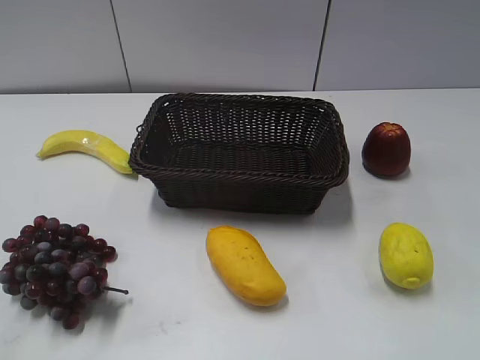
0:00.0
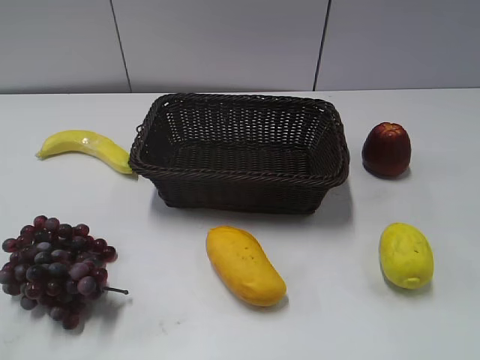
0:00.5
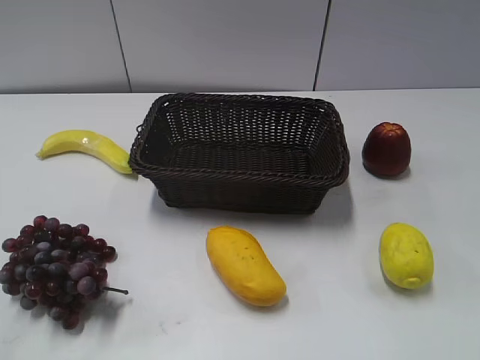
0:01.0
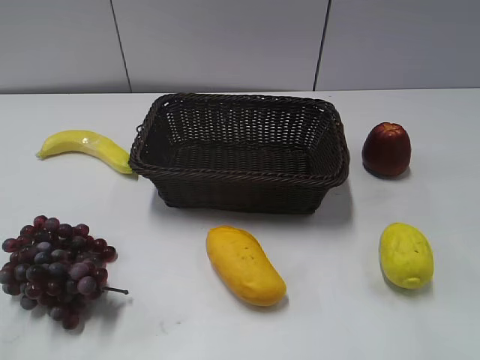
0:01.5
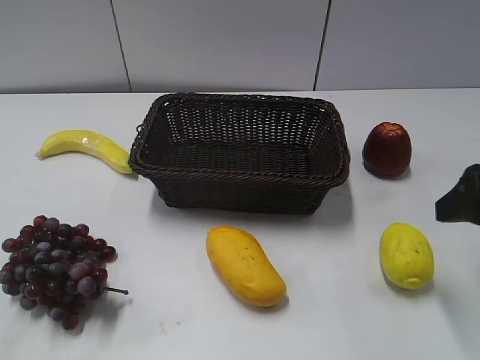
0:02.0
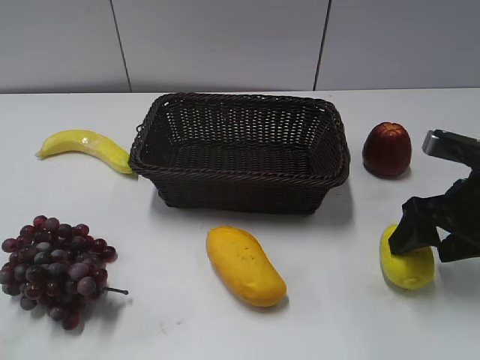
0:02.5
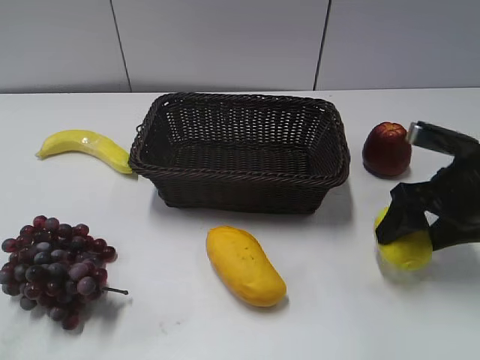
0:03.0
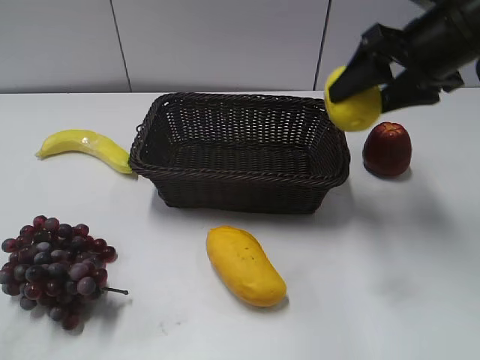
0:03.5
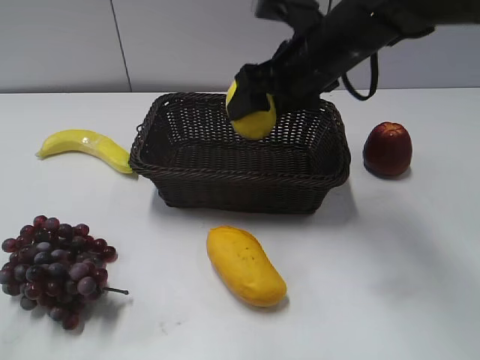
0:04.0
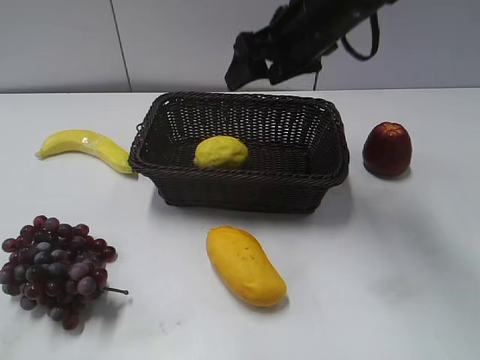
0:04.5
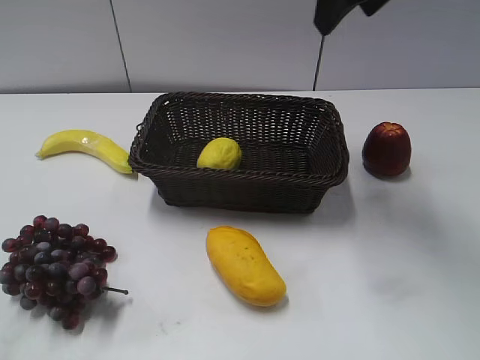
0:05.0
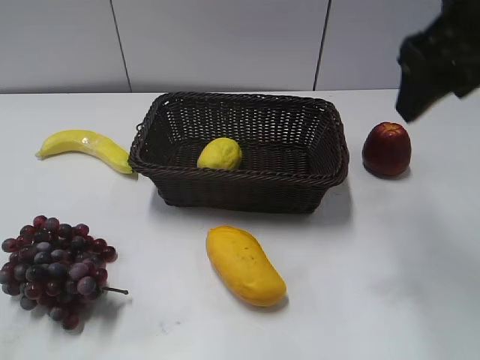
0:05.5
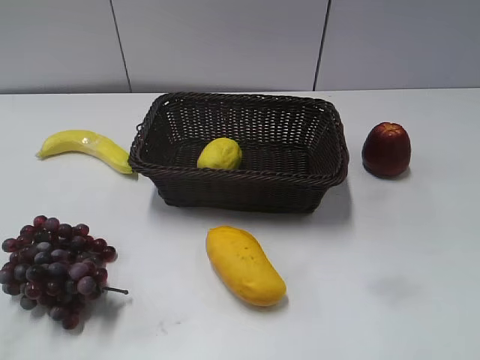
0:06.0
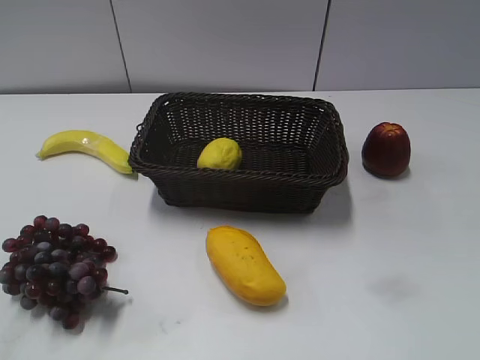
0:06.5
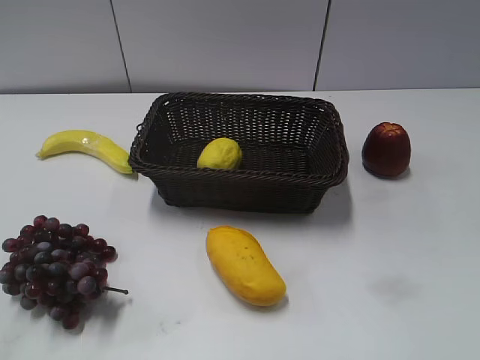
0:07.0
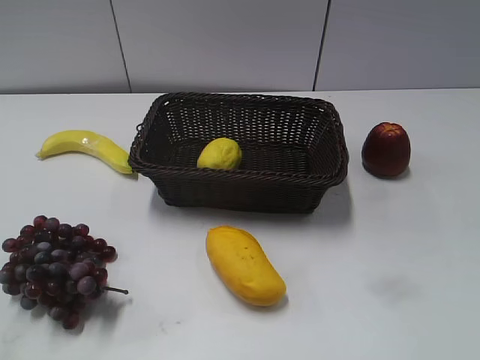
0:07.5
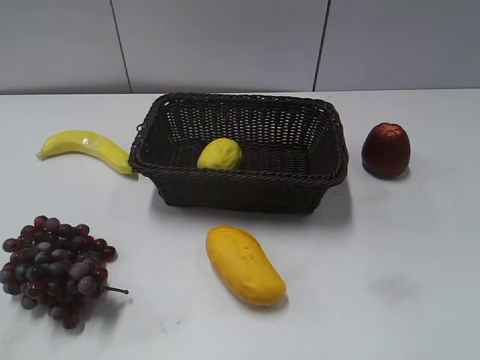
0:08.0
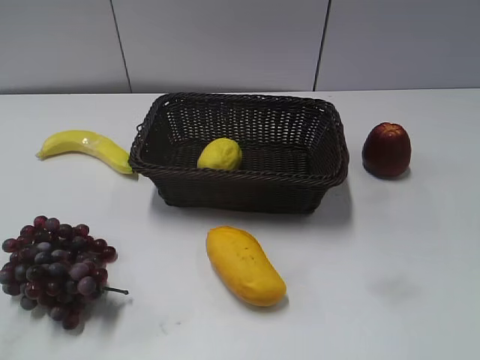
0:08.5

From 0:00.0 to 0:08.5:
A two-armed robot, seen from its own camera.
Step, from 0:02.0 to 0:03.0: Grasp the lemon with right gripper.
Step, from 0:03.5 to 0:04.0: Place the lemon in the basket with right gripper.
From 0:02.0 to 0:04.0: The right gripper moves to the left and forward, approximately 25 cm.
From 0:04.0 to 0:06.5: The right gripper travels backward and to the right by approximately 40 cm.

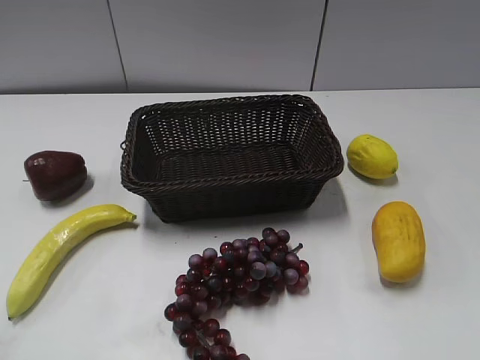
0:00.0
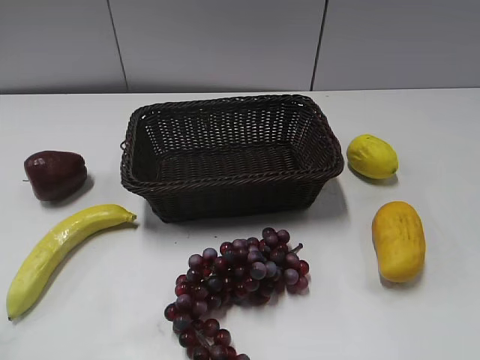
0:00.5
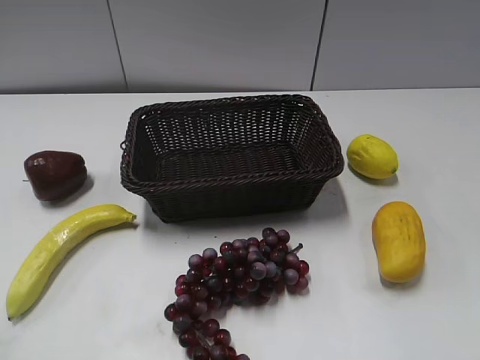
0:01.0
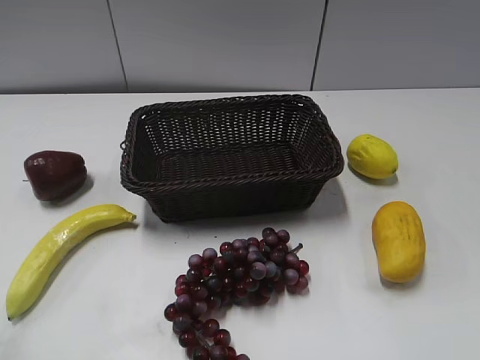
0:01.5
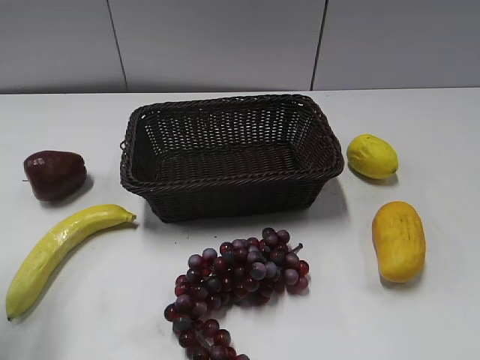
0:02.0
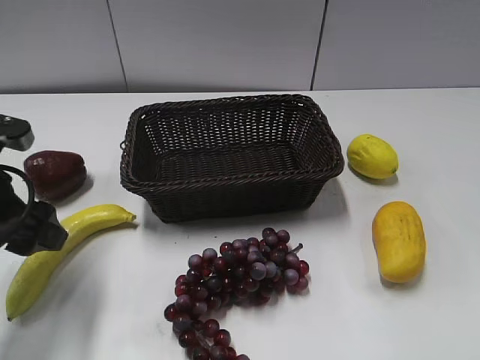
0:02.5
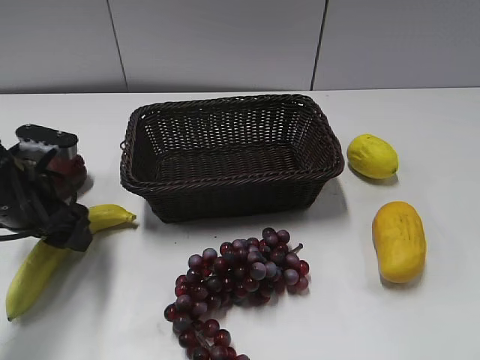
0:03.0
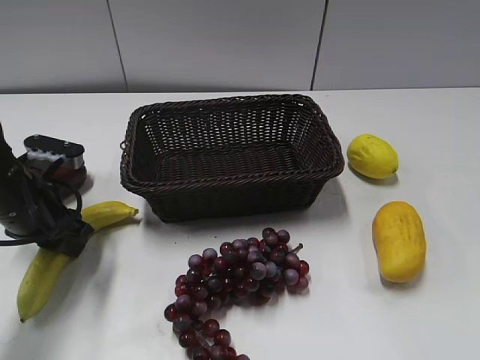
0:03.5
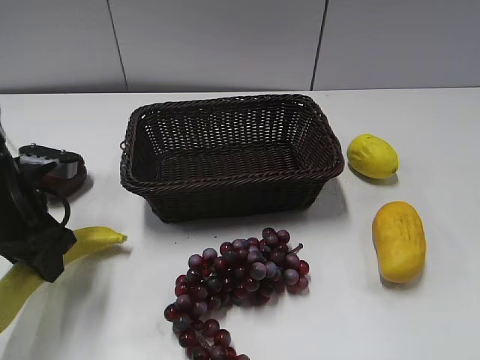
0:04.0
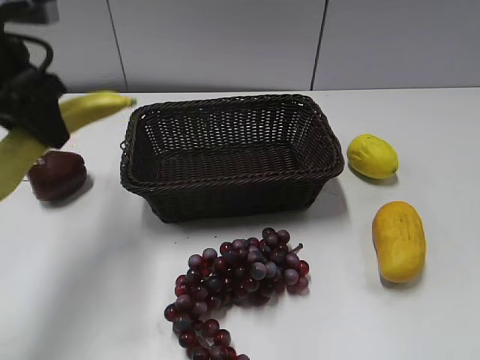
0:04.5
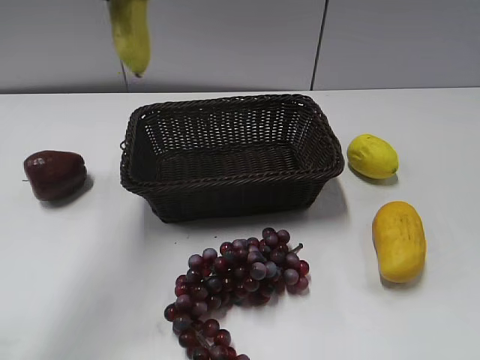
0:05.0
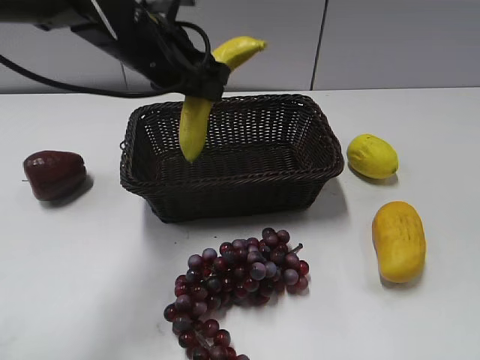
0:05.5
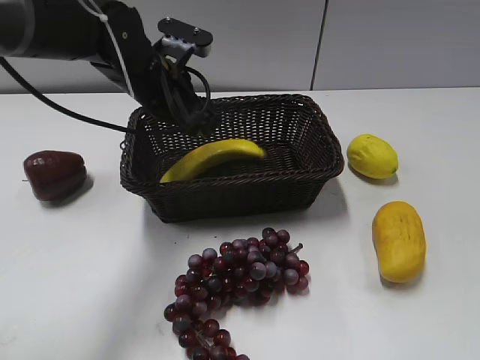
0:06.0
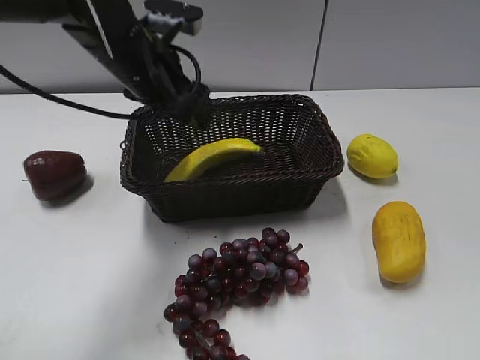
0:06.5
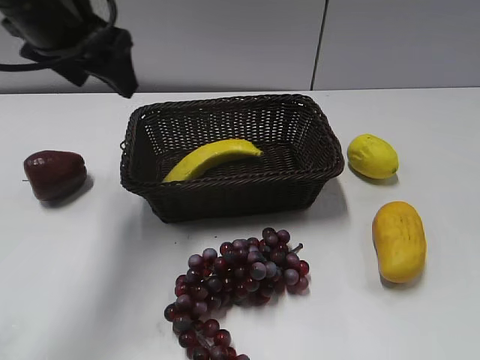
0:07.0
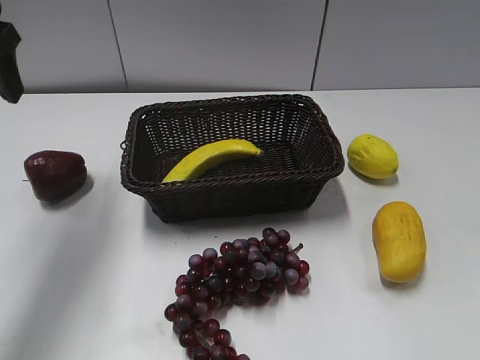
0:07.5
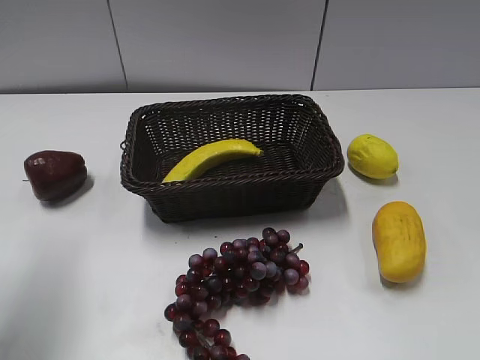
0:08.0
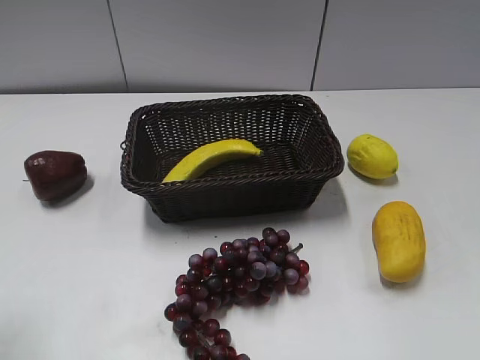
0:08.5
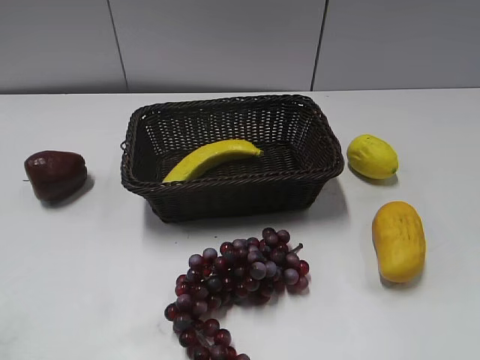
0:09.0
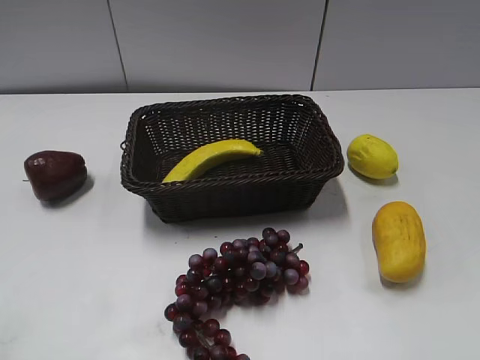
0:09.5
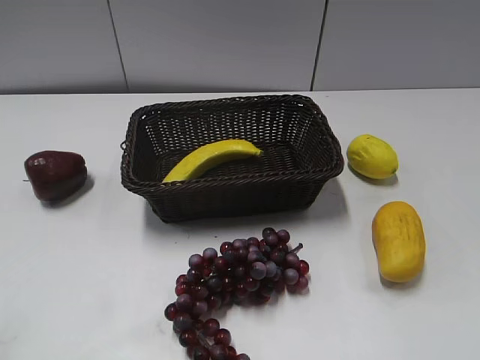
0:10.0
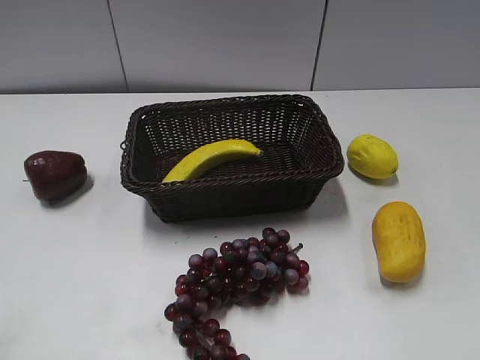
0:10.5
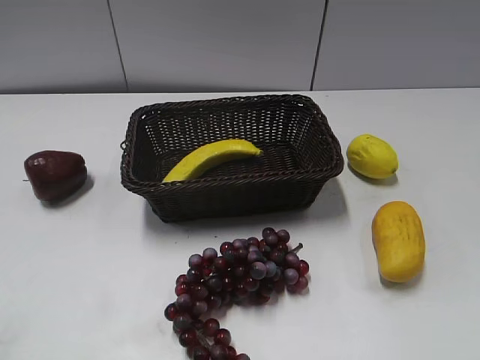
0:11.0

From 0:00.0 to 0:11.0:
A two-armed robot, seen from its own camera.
Step, from 0:02.0 to 0:04.0: Grasp the banana with left gripper.
Step, from 0:04.5 to 0:06.0: Place the banana in the basket with left gripper.
From 0:02.0 to 0:03.5: The left gripper moves downward, forward and to the right, roughly 20 cm, and closes its fingers.
From 0:03.5 to 0:05.5: The left gripper is displaced upward, to the right and forward by about 20 cm.
From 0:05.5 to 0:07.5: The left gripper moves to the left and upward, approximately 15 cm, and opens its fingers.
From 0:07.5 to 0:09.0: The left gripper moves backward, approximately 25 cm.

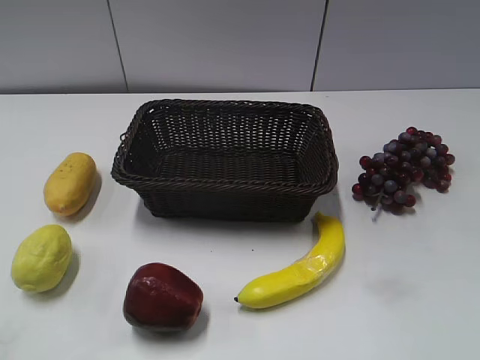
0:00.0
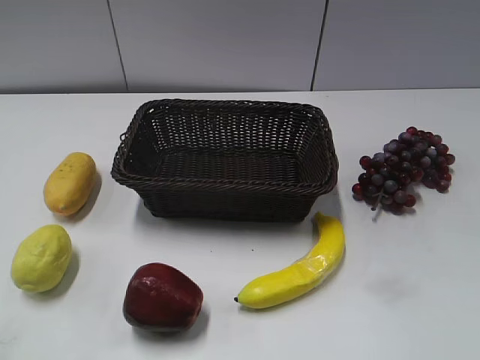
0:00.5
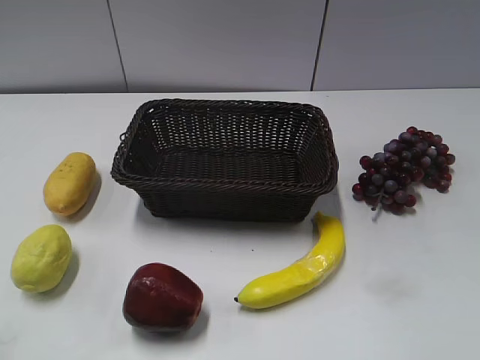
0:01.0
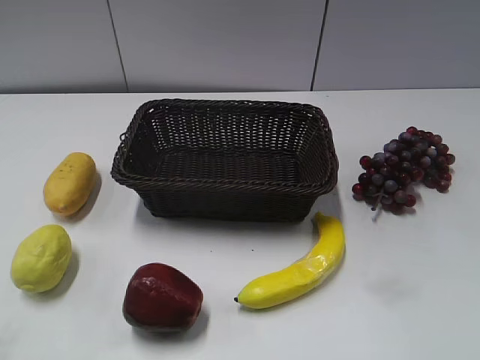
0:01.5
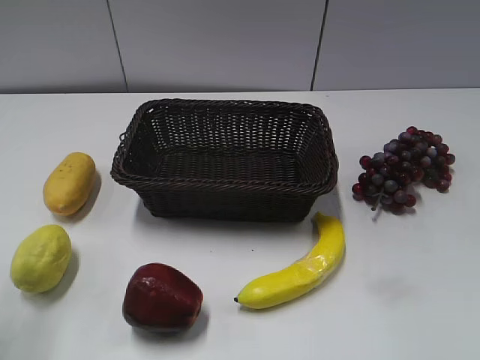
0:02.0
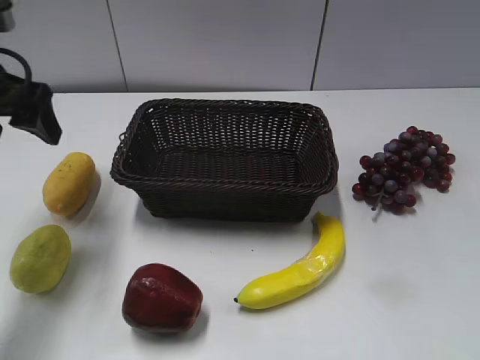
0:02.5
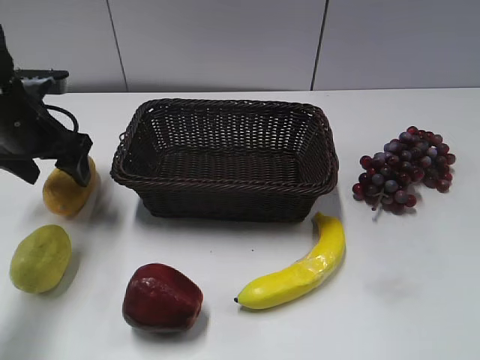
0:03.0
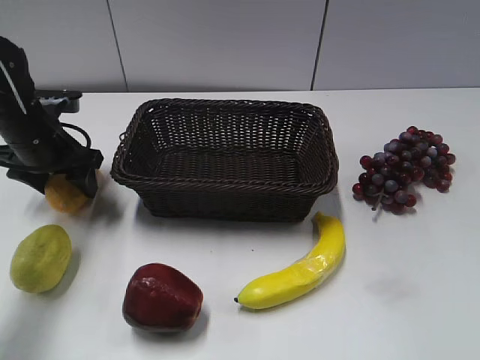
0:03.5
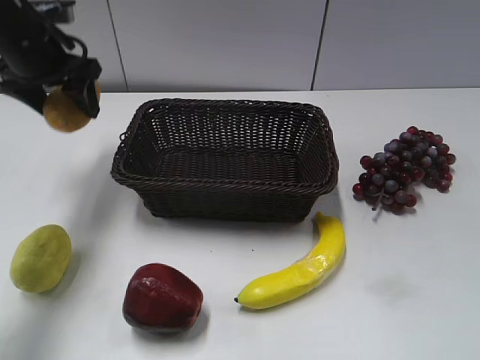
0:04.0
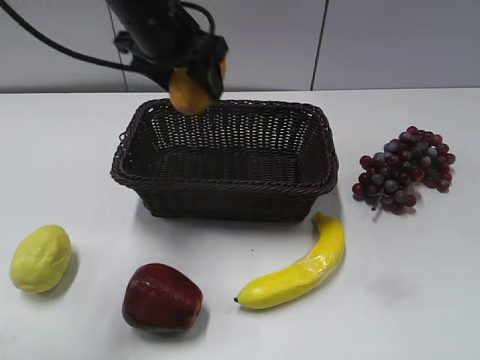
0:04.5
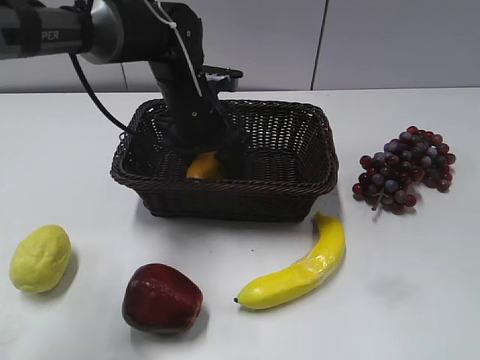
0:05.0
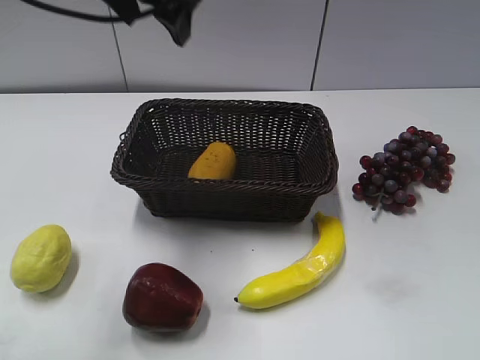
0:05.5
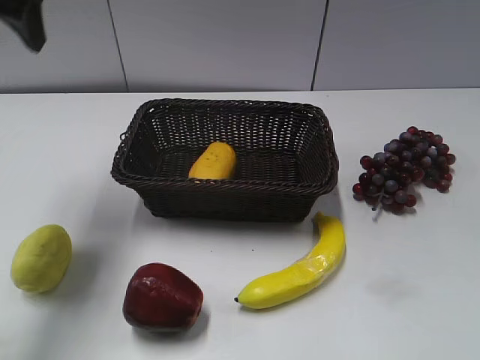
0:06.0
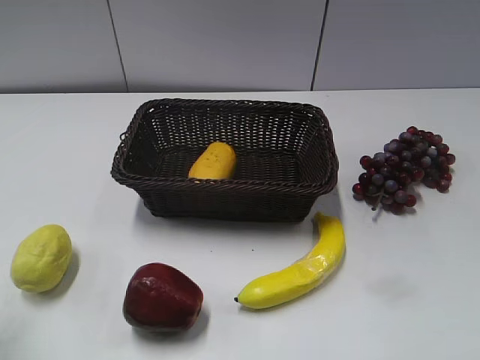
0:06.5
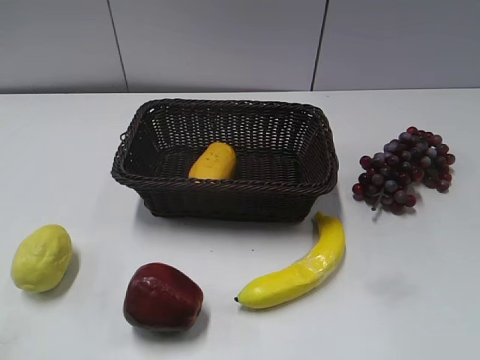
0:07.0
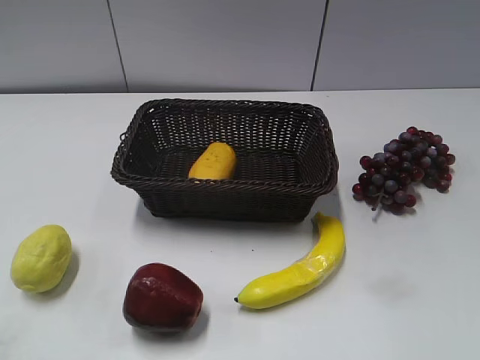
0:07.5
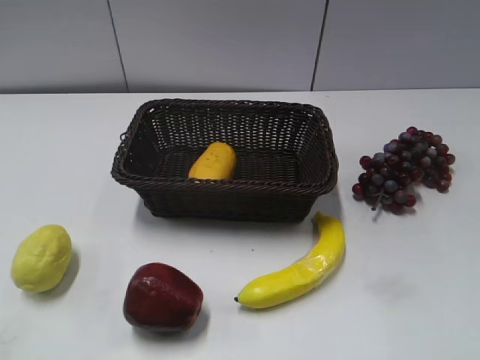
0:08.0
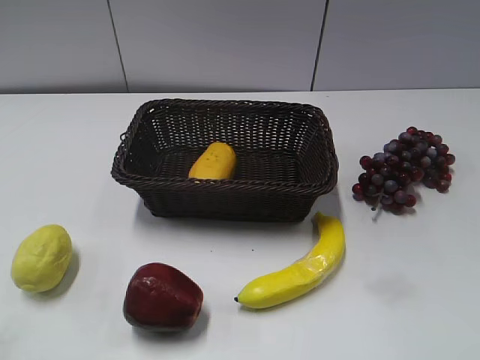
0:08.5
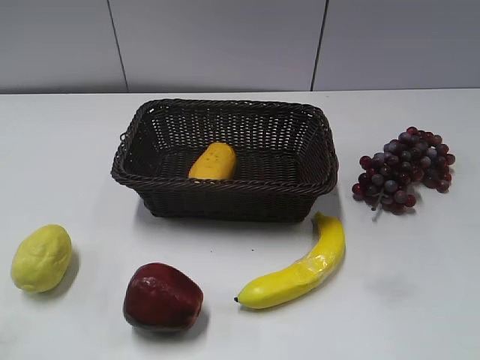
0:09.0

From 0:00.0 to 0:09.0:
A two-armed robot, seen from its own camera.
Step, from 0:02.5 to 0:03.0: Grasp the mango with left gripper.
Step, from 0:04.0 to 0:05.0: Place the mango in the basket with left gripper.
From 0:02.0 to 0:04.5: The left gripper heads to the right and forward, covering roughly 30 cm, and closes up.
From 0:04.5 to 0:07.0: The left gripper shifts roughly 50 cm backward and to the left, and opens and closes again.
